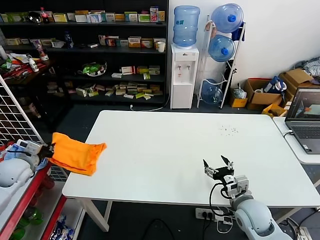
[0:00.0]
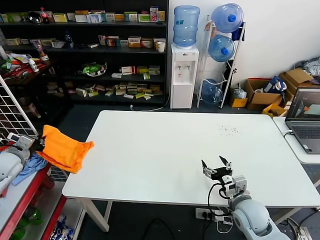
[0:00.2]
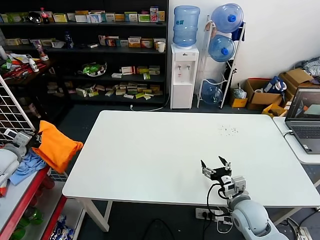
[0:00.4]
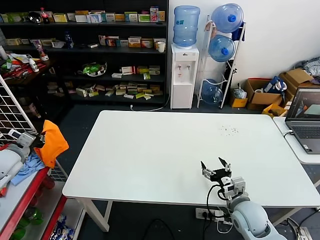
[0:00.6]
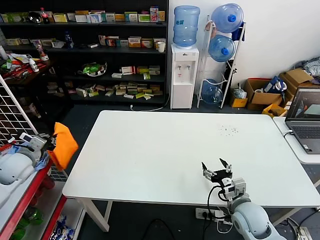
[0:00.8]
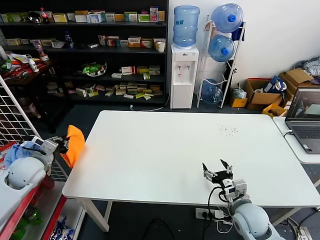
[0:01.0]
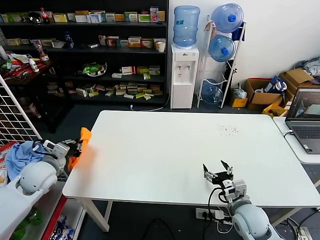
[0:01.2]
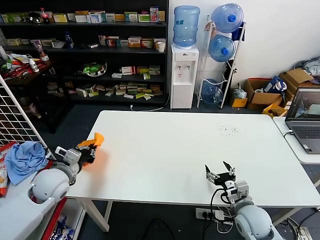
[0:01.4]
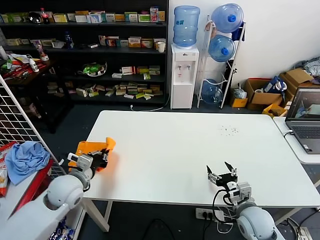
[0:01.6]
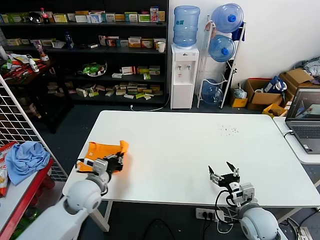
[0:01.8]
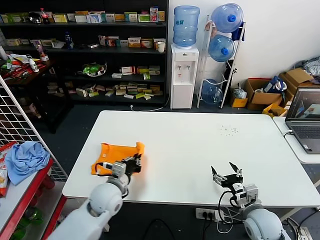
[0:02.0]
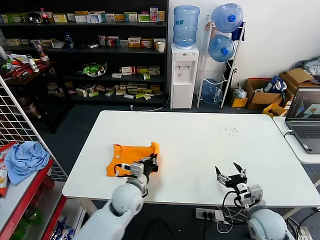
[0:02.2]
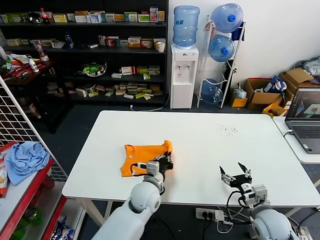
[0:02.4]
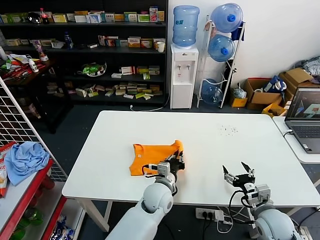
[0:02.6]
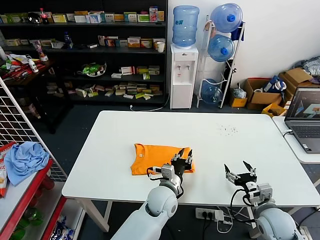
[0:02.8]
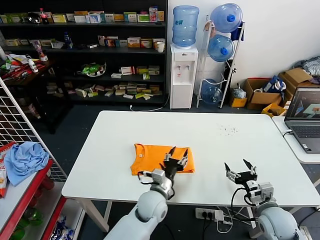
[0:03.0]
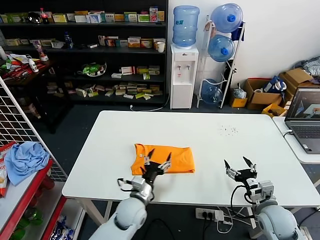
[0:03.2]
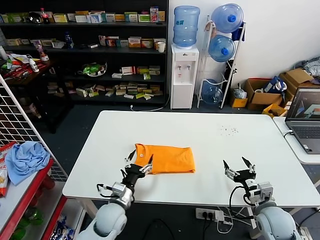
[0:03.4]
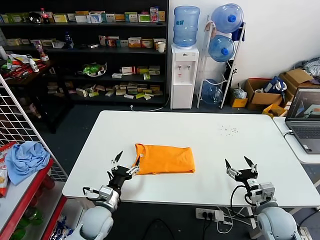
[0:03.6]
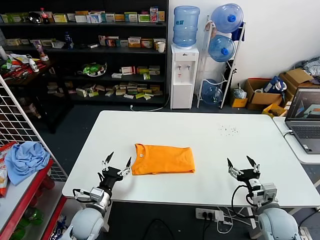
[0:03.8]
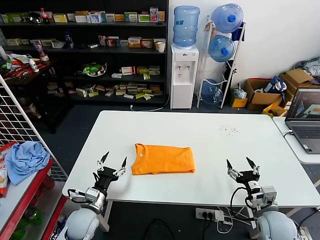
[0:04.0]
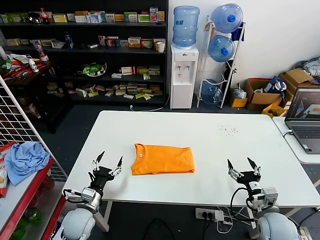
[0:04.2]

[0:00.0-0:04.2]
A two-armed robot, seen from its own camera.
Task of the whole recording: fold and organize the clothes.
Step, 0:00.0 to 0:02.6: Flip the folded clothes over with left gripper.
0:00.0 to 0:01.4: The left gripper travels to the right by roughly 15 cm.
0:01.4 to 0:02.8: The right gripper is displaced to the right by some 5 cm. Meanwhile the left gripper shifts about 35 cm to the right.
0:02.8 to 0:04.2: The left gripper is displaced to the left by some 25 cm, and opens up.
